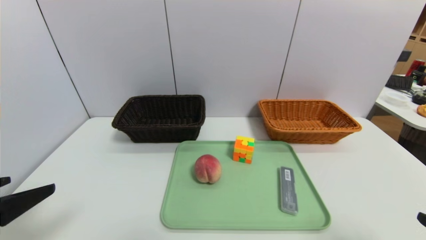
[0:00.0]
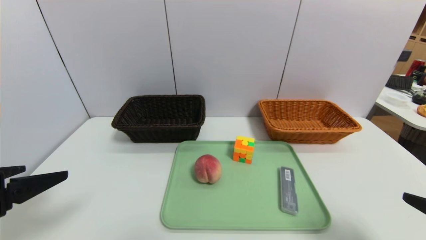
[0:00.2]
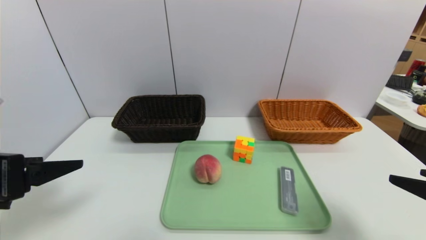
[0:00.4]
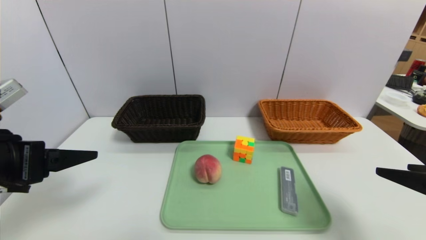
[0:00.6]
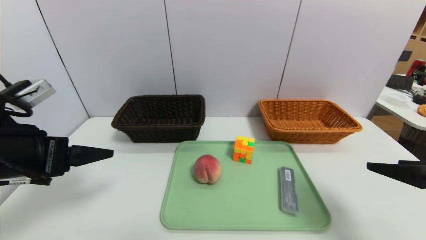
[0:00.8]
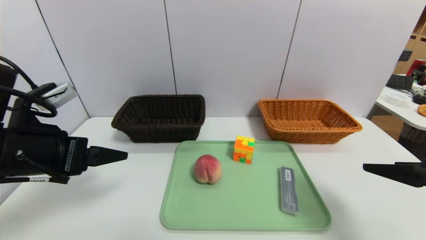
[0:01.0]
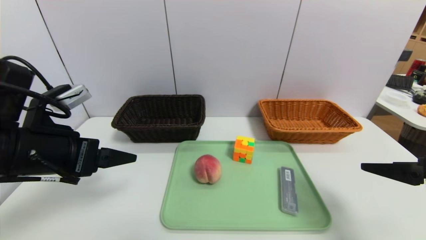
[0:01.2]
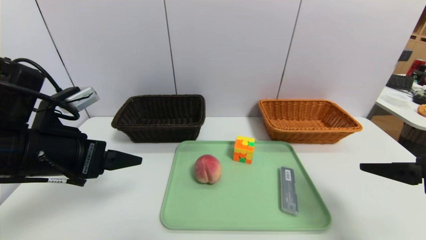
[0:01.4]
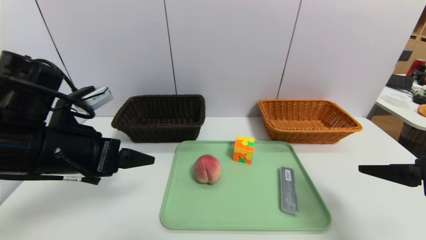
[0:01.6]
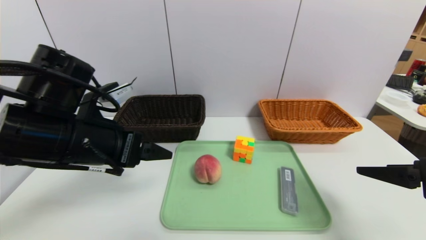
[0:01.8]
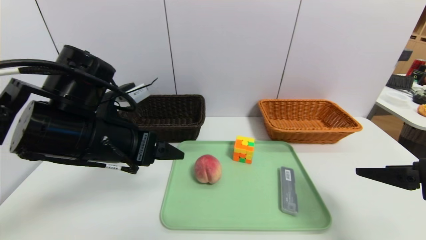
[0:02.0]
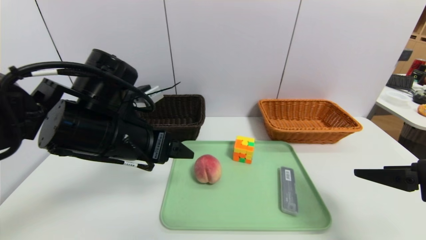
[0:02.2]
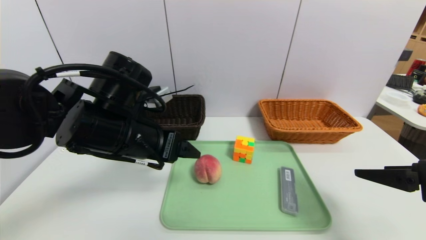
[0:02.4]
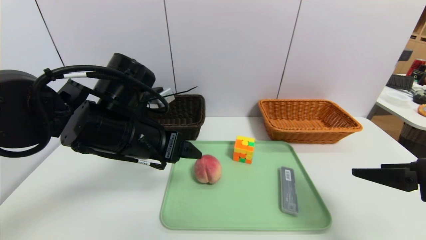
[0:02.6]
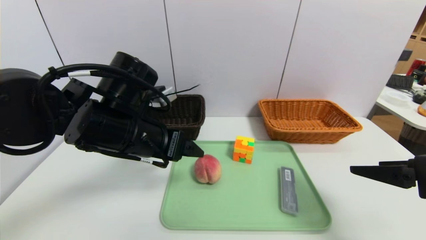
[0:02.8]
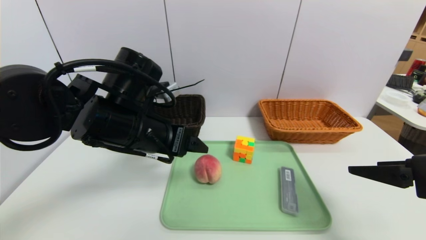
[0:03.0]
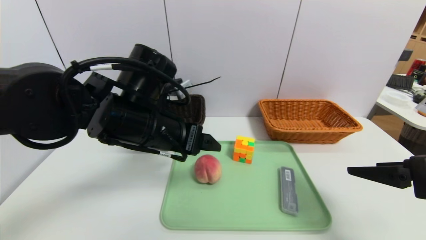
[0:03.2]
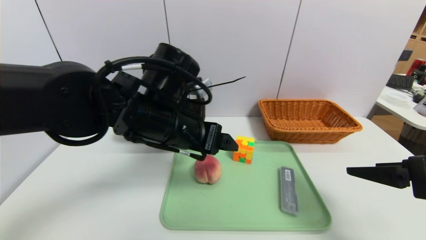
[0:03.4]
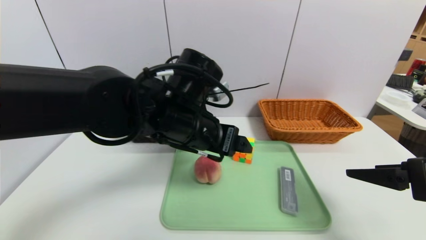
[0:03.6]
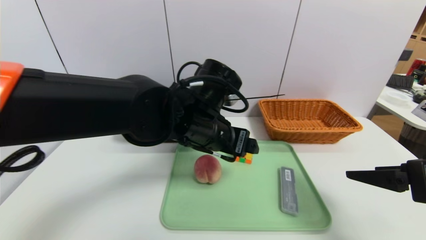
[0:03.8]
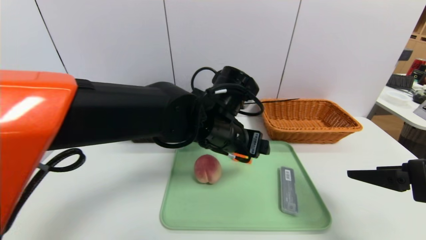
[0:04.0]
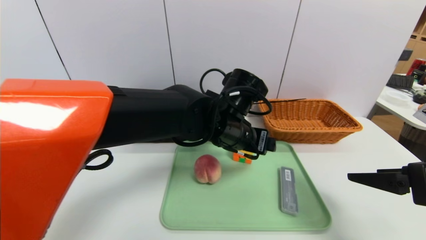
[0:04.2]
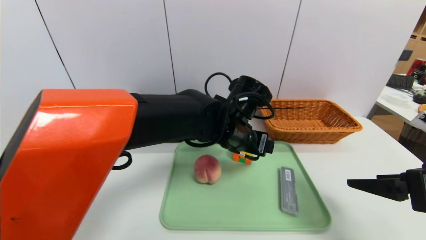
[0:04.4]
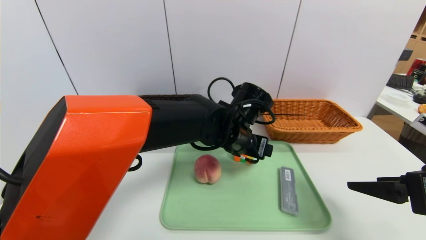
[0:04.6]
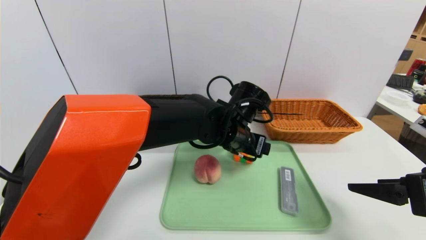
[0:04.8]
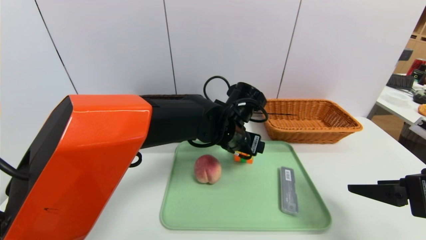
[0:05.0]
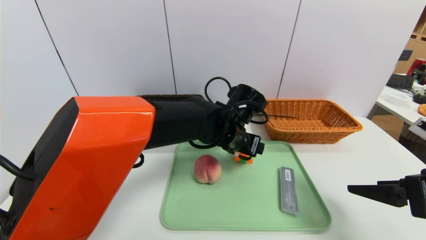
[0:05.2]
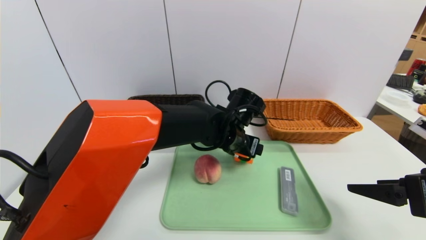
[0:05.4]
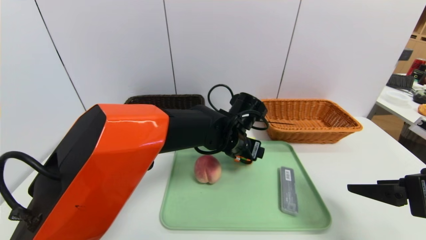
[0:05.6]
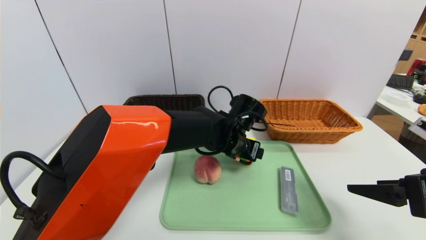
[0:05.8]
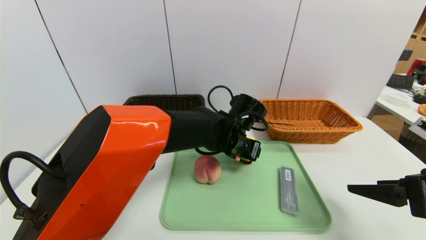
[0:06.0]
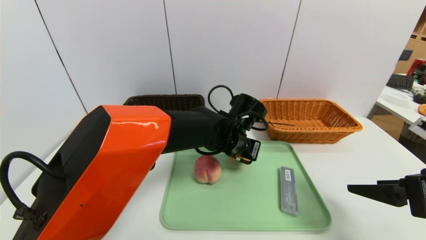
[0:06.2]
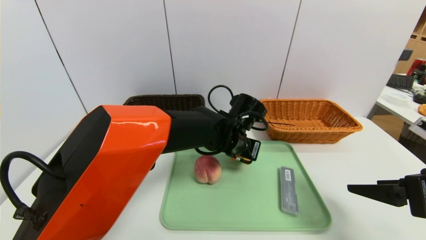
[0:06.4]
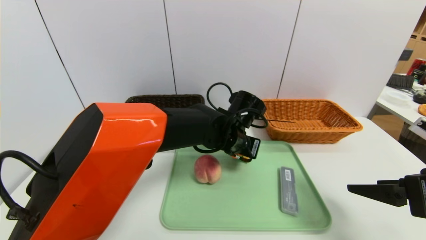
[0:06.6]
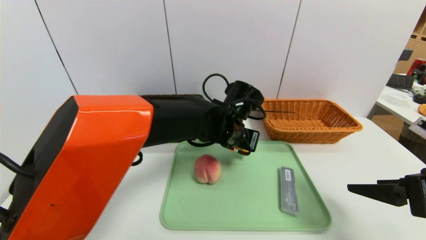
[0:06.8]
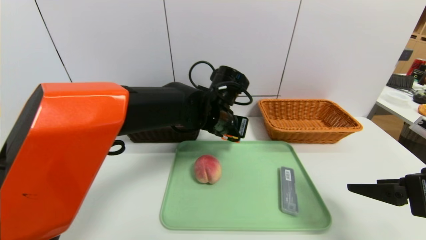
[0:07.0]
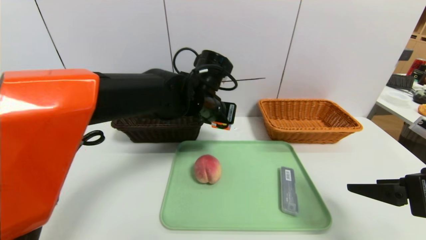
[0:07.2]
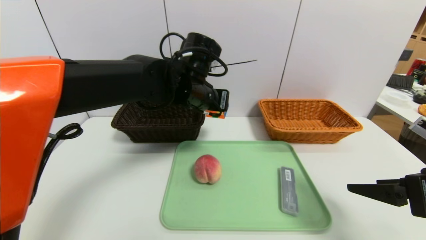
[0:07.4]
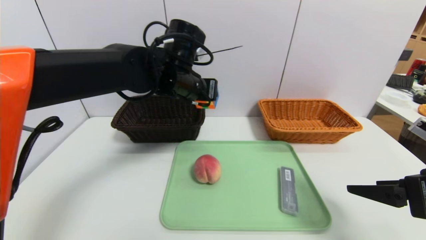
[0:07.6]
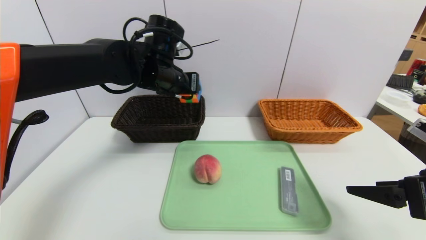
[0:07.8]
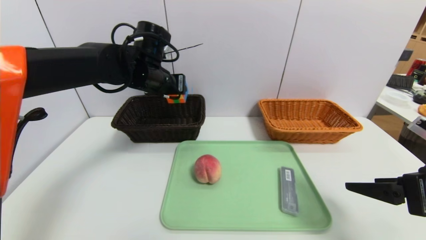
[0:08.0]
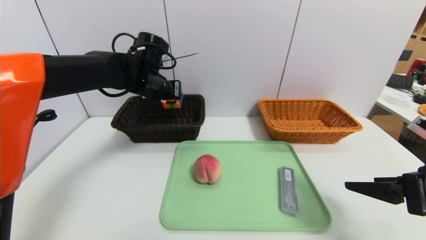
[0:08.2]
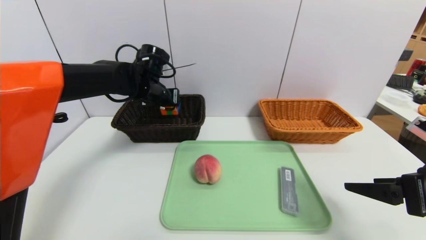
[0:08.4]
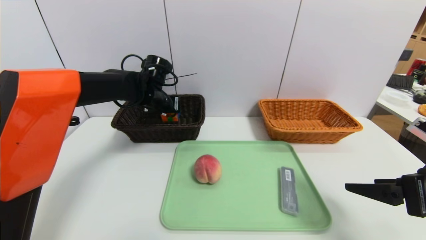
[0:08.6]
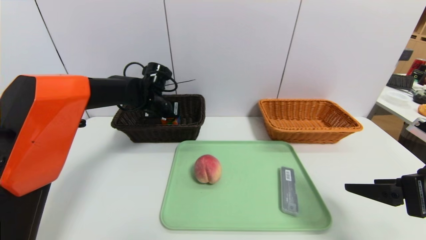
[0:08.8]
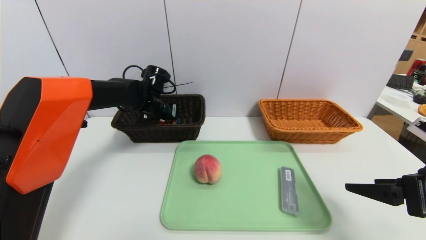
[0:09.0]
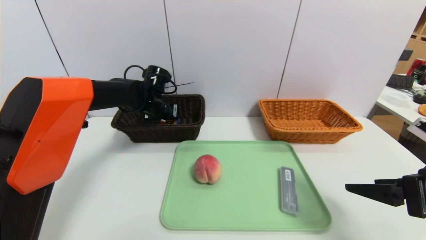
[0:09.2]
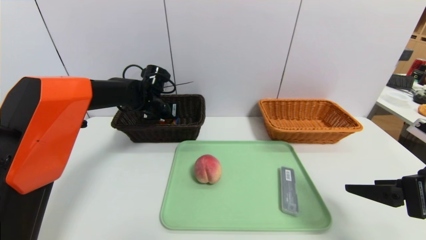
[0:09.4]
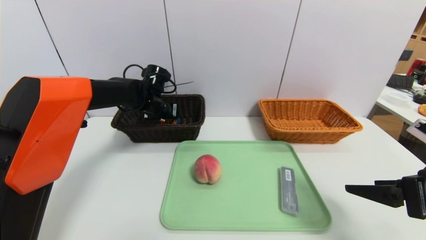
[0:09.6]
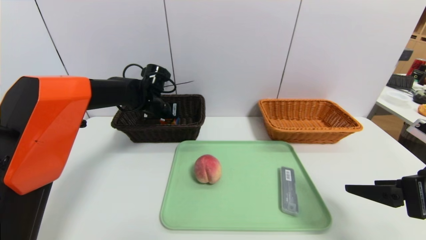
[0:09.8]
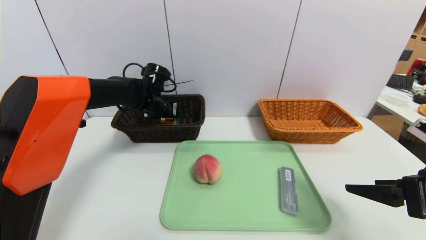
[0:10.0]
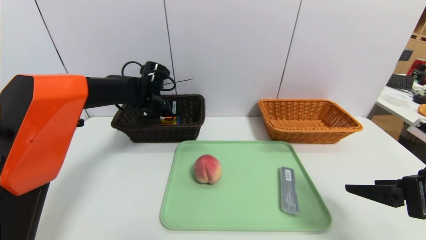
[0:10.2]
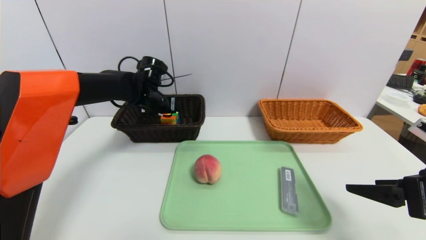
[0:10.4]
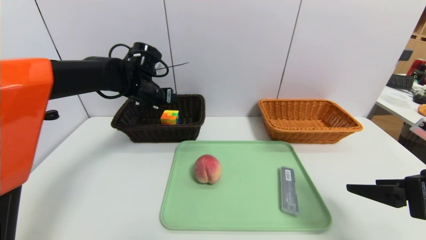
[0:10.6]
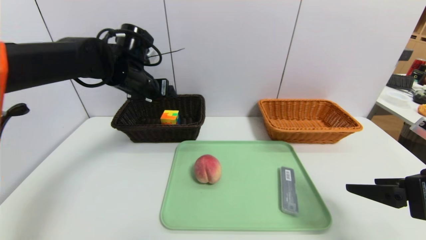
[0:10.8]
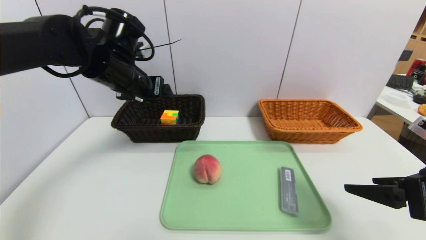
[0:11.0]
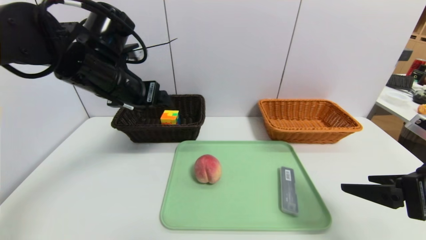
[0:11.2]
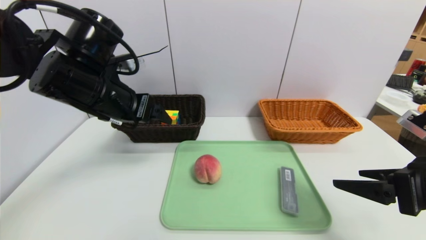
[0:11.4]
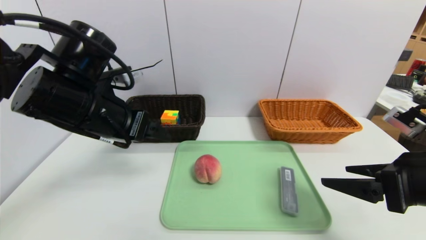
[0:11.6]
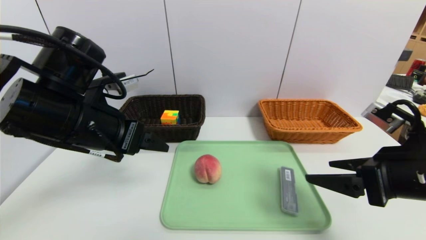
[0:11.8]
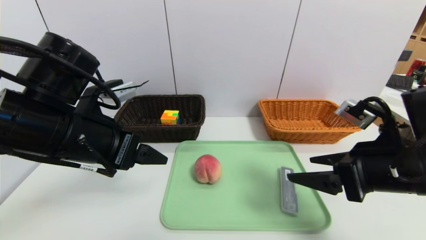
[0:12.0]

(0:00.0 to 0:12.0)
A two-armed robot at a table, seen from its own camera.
Task of the whole recording: place the food in the right basket with the right gripper, and place the non food items in the left basket with the left gripper.
Step, 0:00.0 - 0:10.6: Grasp the rubiks cube and put it in the left basket.
0:00.0 - 0:01.6: The left gripper travels forward and to the right by approximately 15 cm. The right gripper is displaced forward by roughly 10 cm.
0:01.6 - 0:03.0: The left gripper shifts roughly 10 cm to the right and forward.
0:03.0 - 0:04.4: The left gripper heads to the right, covering roughly 15 cm.
0:04.4 - 0:06.0: The left gripper shifts by some 5 cm, and closes up.
0:06.0 - 0:07.6: The left gripper shifts approximately 15 cm upward and to the left, and closes up.
0:07.6 - 0:09.0: The left gripper goes about 15 cm downward, forward and to the left.
0:09.0 - 0:10.4: The left gripper opens its fingers.
0:10.4 - 0:12.0: The left gripper travels backward by approximately 25 cm; the right gripper goes some 5 cm to the left.

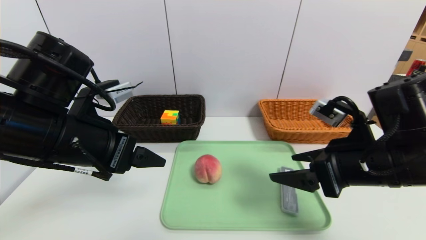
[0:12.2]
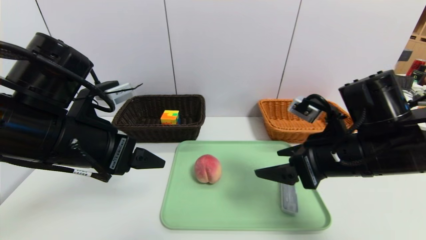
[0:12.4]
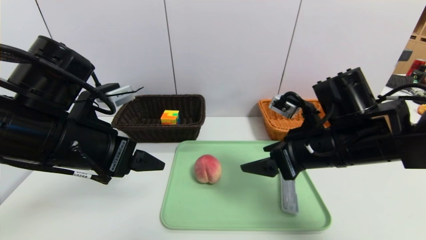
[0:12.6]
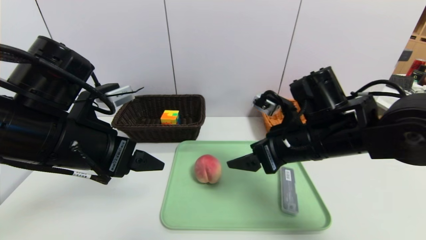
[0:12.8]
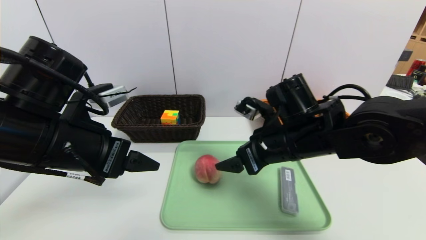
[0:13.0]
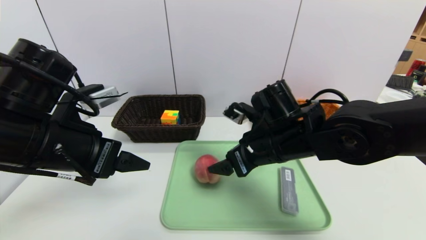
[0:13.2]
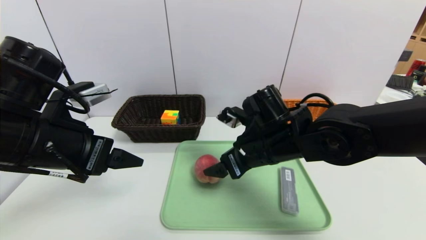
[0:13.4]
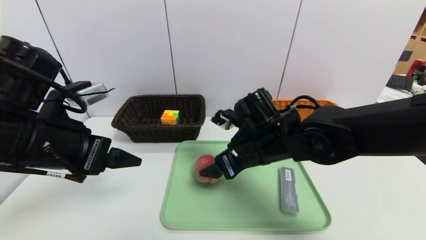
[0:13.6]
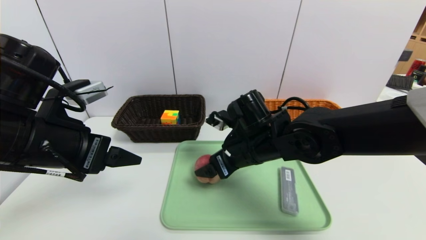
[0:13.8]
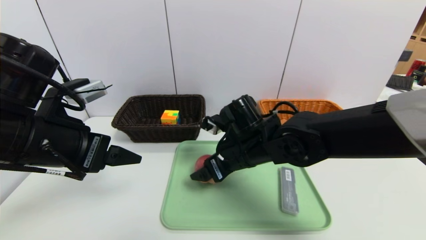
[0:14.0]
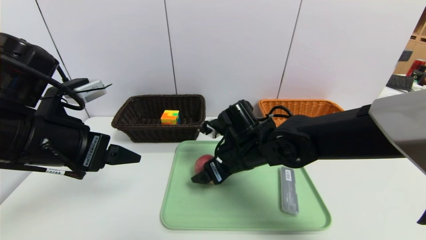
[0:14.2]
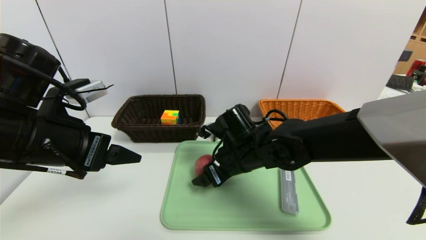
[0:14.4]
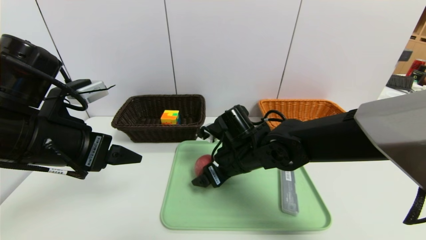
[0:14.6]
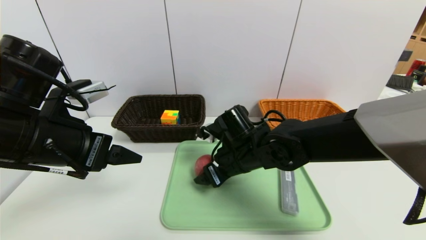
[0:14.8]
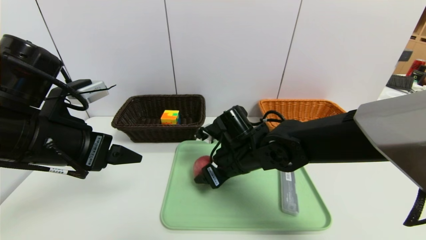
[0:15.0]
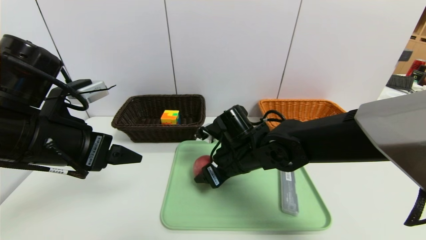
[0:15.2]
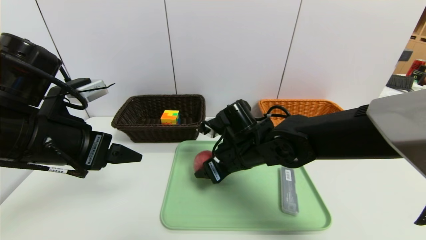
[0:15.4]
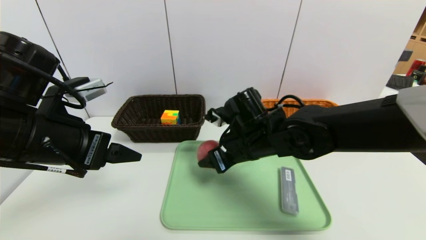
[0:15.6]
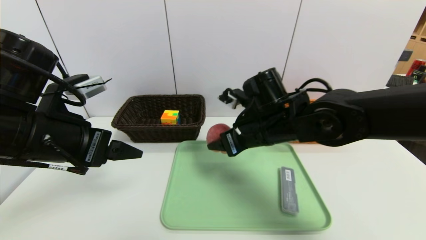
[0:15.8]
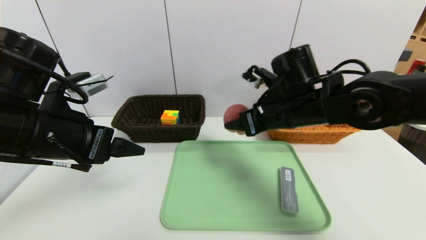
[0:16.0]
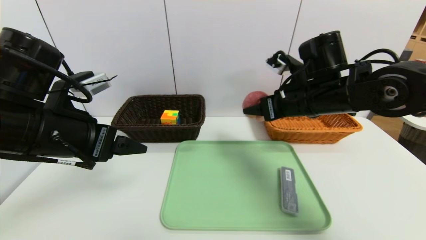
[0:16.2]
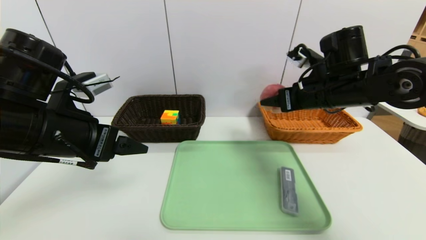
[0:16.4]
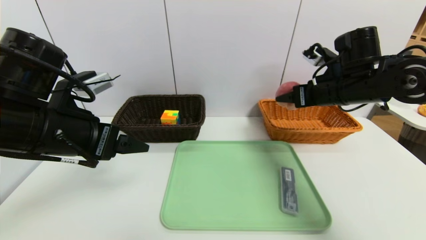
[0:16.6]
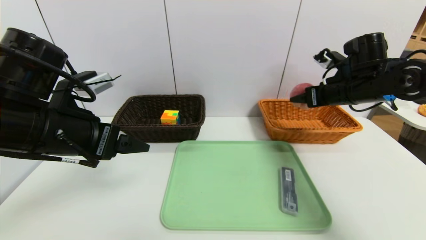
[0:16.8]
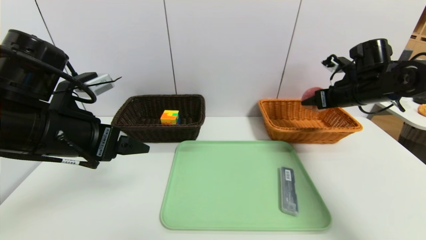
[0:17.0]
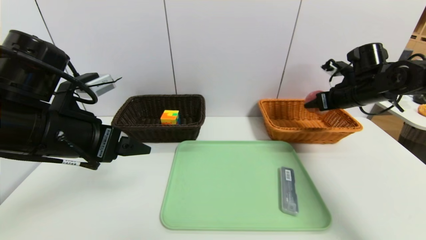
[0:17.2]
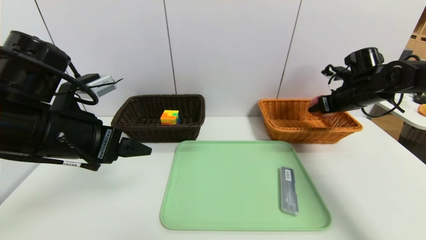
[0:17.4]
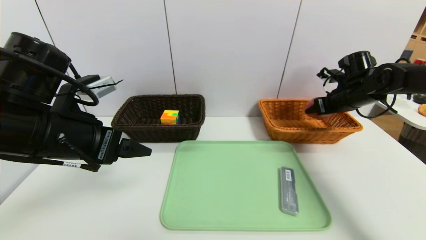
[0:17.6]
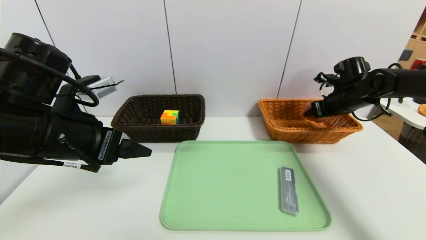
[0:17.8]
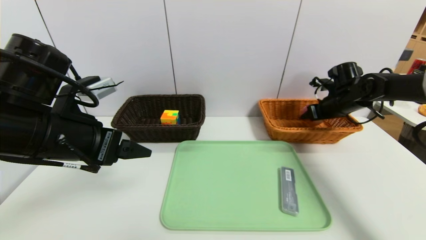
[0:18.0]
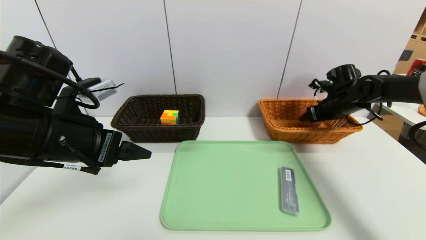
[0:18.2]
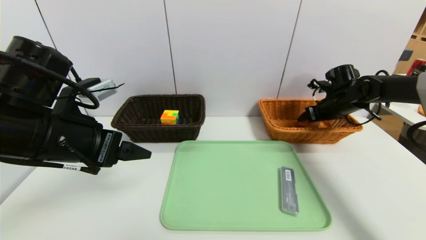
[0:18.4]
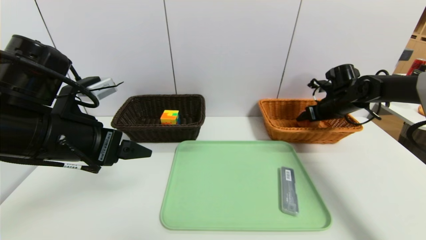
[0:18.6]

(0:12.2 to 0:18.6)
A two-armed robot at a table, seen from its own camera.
Task of the whole recording: place the food in the right basket with the right gripper, and place the non food items in the left basket with the left gripper.
0:12.2 - 0:13.8: The right gripper is displaced to the left and forward by approximately 15 cm.
0:13.8 - 0:15.4: The right gripper closes its fingers.
0:15.4 - 0:17.0: The right gripper goes approximately 25 cm to the right.
0:17.0 - 0:18.6: The right gripper goes some 10 cm forward and downward.
